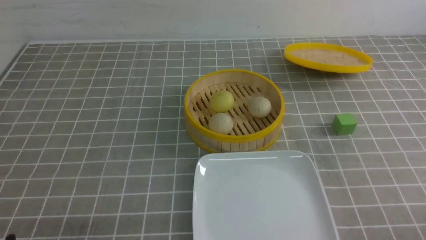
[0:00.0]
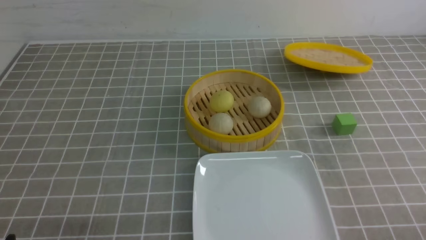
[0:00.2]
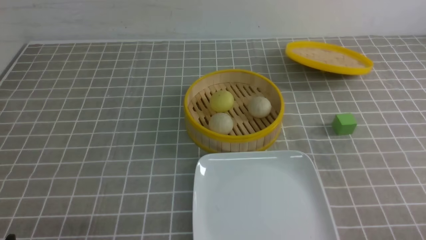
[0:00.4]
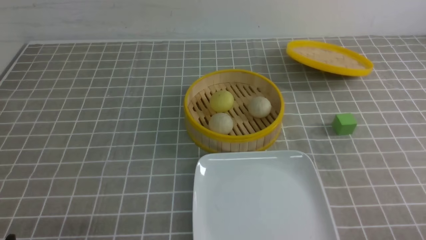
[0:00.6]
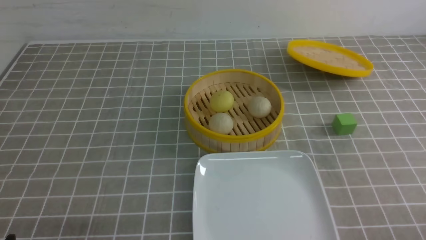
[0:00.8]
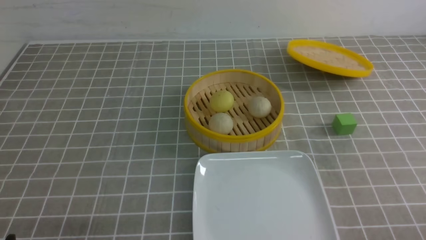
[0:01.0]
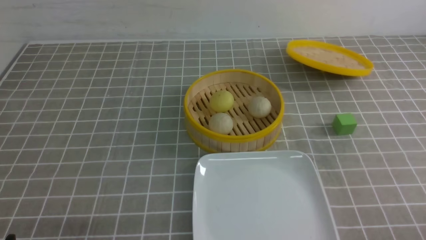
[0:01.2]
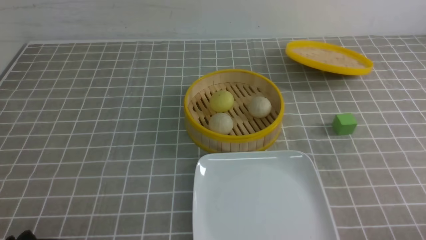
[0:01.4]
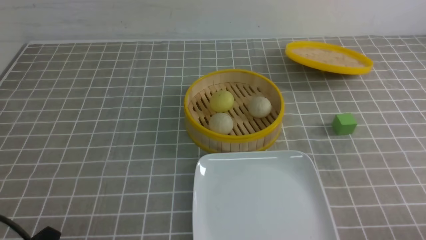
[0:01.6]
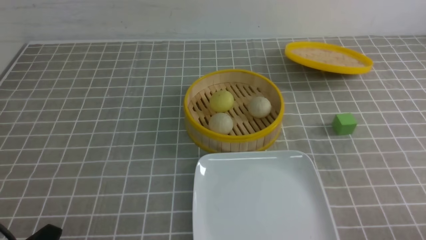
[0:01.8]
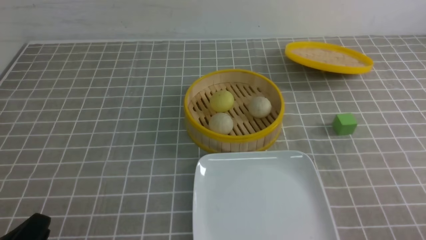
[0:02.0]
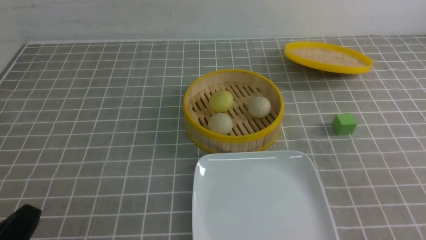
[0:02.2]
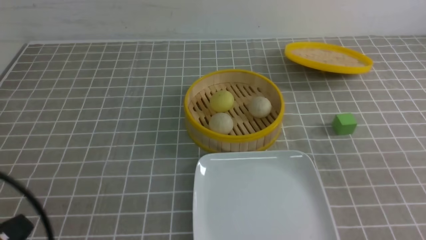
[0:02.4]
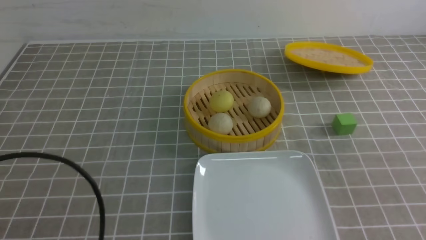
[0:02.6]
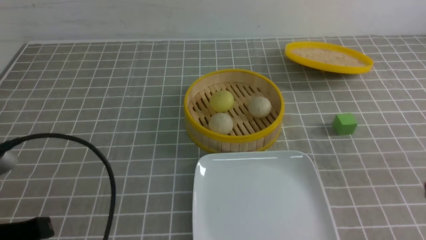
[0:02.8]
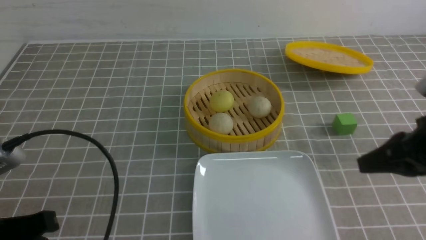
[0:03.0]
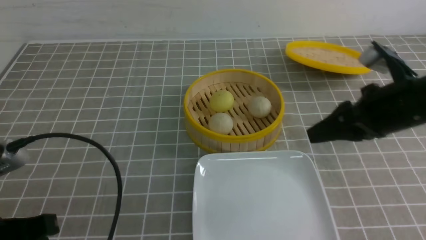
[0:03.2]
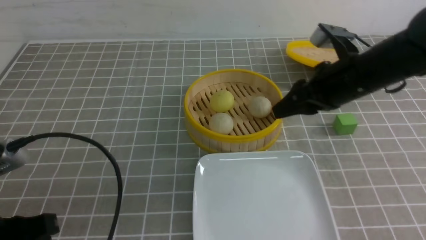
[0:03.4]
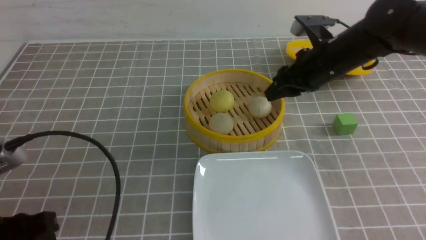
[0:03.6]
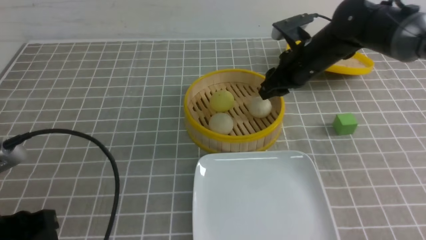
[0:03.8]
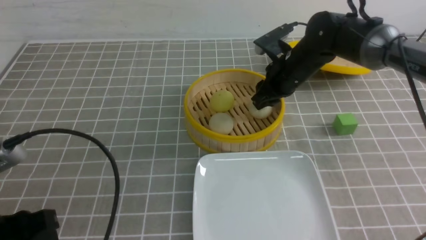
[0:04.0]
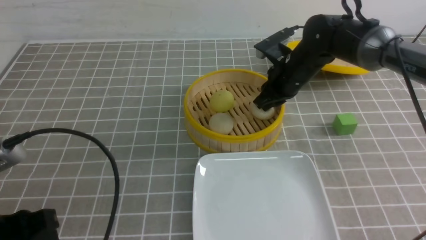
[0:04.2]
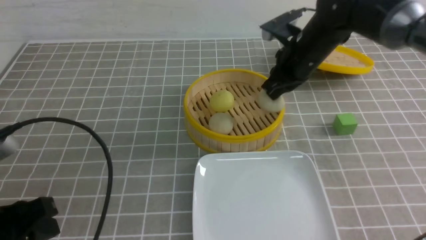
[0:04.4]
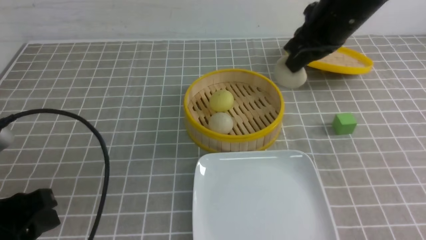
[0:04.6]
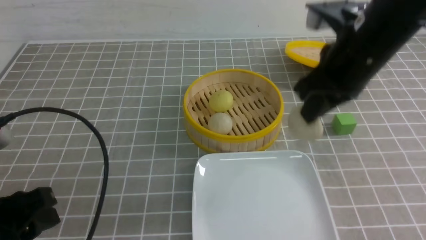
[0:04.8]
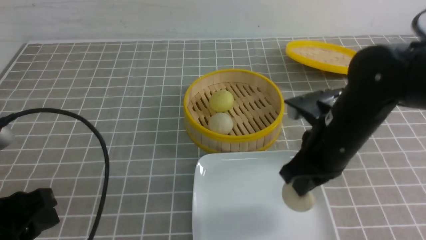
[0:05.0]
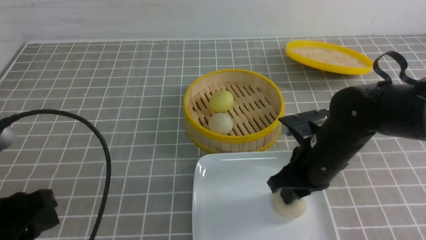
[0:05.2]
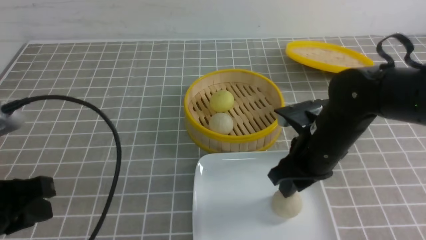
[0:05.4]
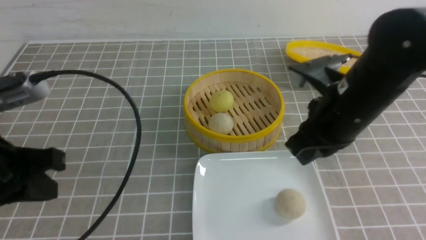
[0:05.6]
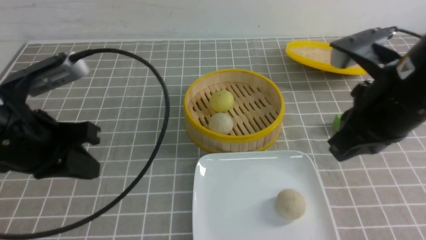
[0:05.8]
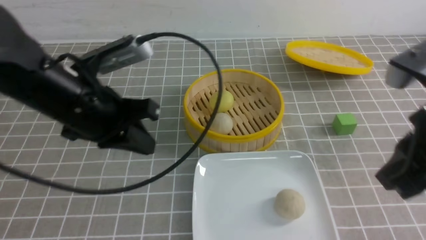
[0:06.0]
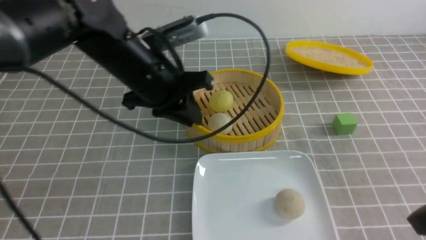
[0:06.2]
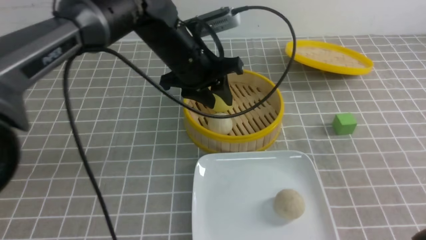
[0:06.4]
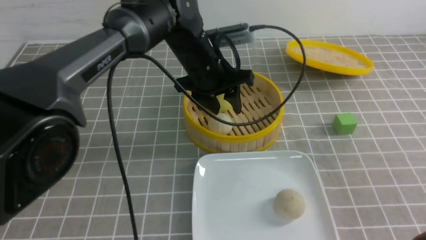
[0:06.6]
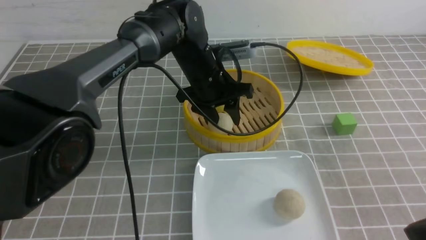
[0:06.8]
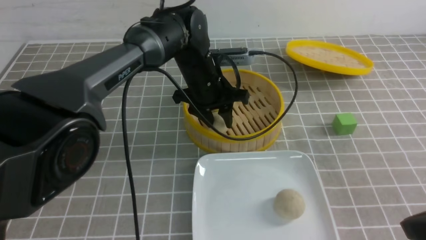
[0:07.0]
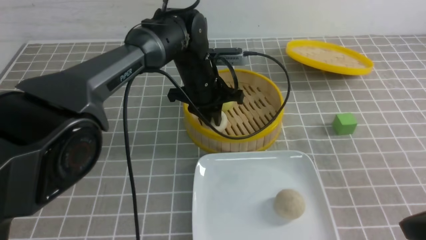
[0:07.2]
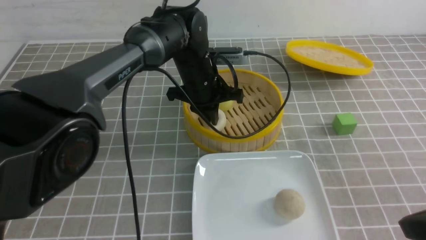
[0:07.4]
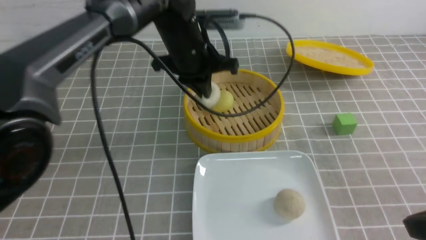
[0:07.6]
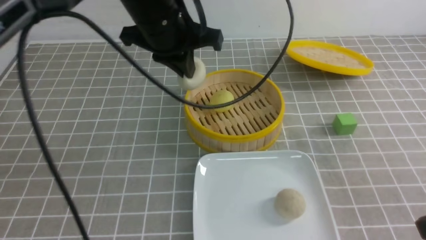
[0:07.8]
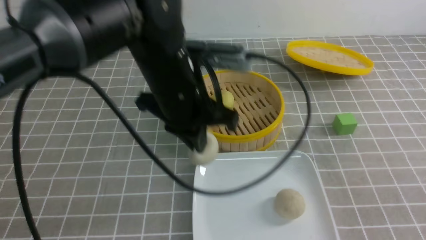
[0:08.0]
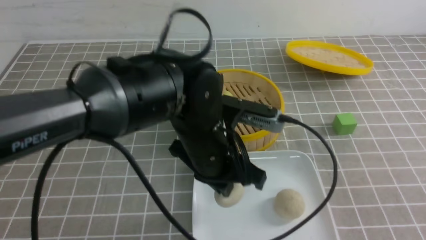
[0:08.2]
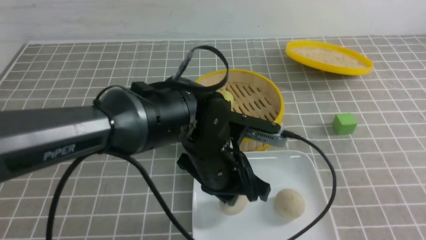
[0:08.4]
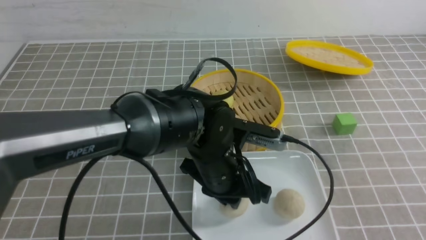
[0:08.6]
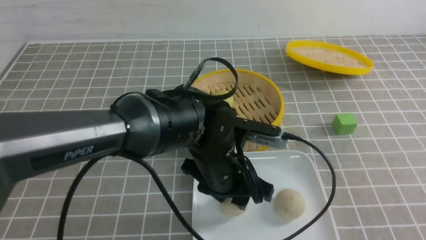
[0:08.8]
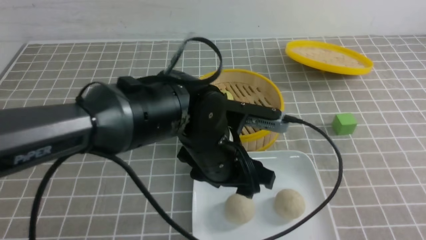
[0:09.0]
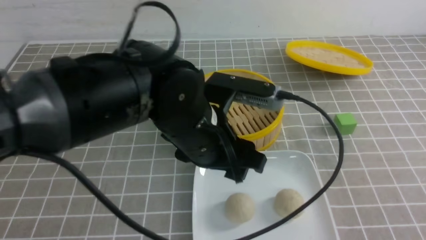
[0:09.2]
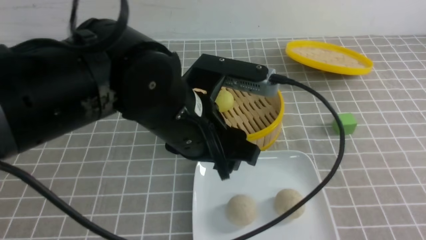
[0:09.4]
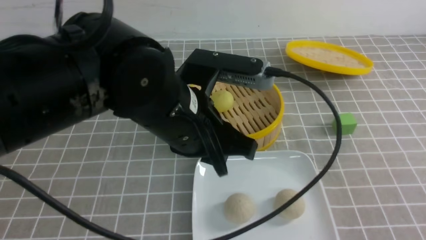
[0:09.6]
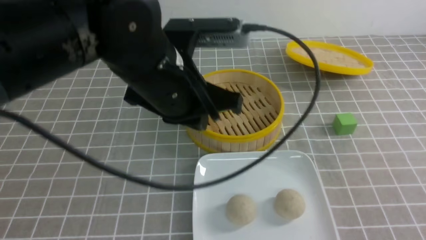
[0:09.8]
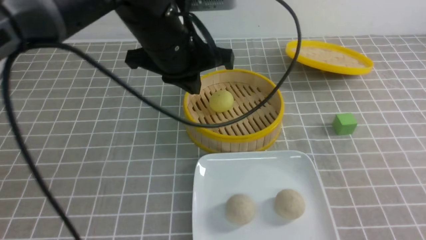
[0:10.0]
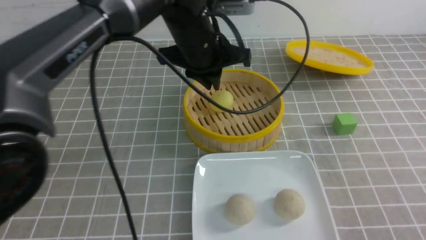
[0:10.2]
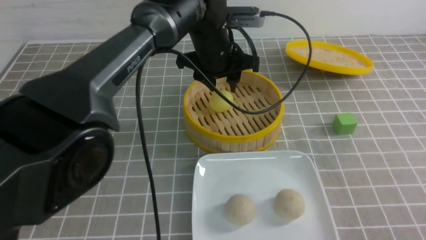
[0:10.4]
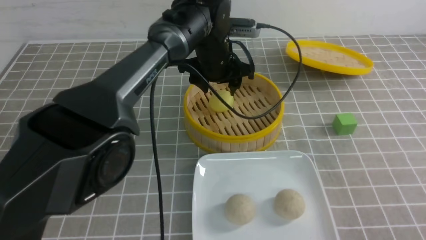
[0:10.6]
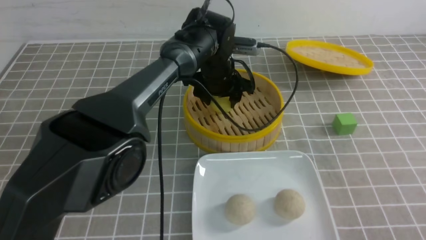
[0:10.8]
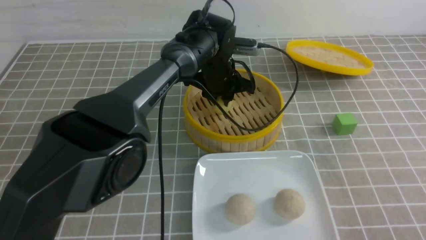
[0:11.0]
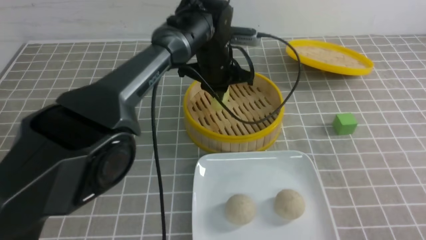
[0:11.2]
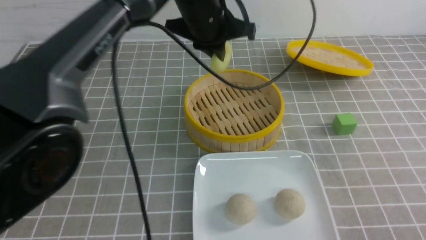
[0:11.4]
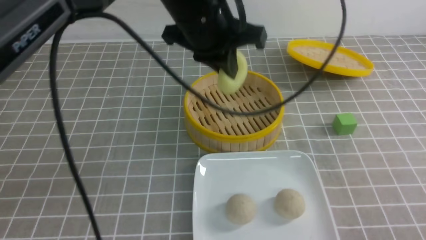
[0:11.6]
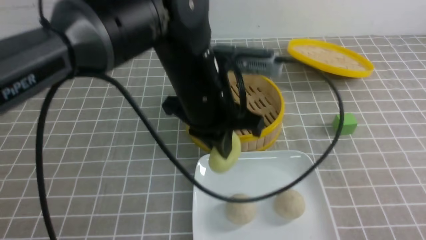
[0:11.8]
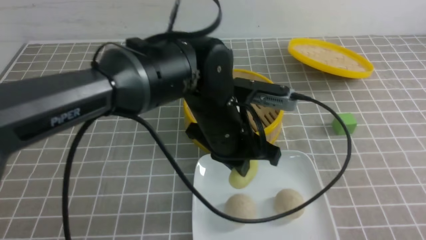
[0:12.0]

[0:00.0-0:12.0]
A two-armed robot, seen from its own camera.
Step, 0:00.0 to 0:04.2: use the right arm to grab the steamed stuffed bun that is closest to it.
Step, 0:04.6 to 0:05.2: use the right arm to put the steamed stuffed bun into the plate.
Step, 0:05.6 to 0:07.4: use the left arm to grab the steamed stuffed bun that is closest to it.
Step, 0:07.6 to 0:08.8: use the left arm to put the steamed stuffed bun into the plate.
Step, 0:09.0 to 0:11.0: use the left arm to grab the steamed stuffed bun that is closest to it.
0:01.6 to 0:03.0: The left gripper travels upward and forward by approximately 10 cm, and closes up. The right gripper goes approximately 20 cm forward and upward, and closes.
0:03.0 to 0:04.4: The left gripper opens its fingers, while the right gripper heads forward and to the left, covering roughly 25 cm, and opens, then closes once more.
0:04.4 to 0:06.0: The right gripper goes approximately 25 cm backward, and opens, then closes once more; the left gripper is displaced forward and to the right by approximately 20 cm, and closes.
0:06.0 to 0:07.6: The left gripper shifts about 15 cm forward and to the right, and opens, then closes again. Meanwhile the right gripper moves backward, approximately 5 cm.
0:07.6 to 0:09.0: The left gripper heads backward and downward, covering some 15 cm, and opens. Meanwhile the right gripper goes roughly 10 cm backward and to the right.
0:09.0 to 0:10.4: The left gripper goes roughly 20 cm forward, and closes and opens again.
0:10.4 to 0:12.0: The left gripper travels backward by approximately 15 cm, and closes its fingers.

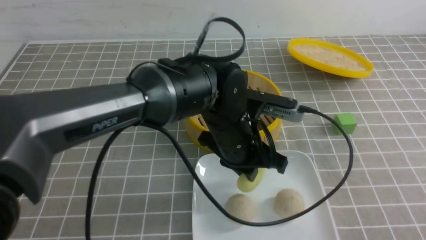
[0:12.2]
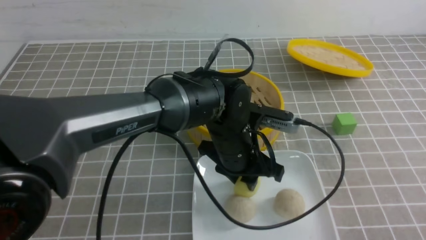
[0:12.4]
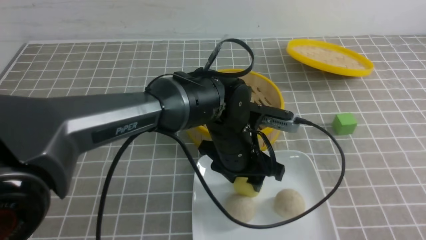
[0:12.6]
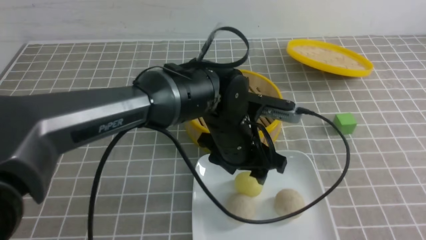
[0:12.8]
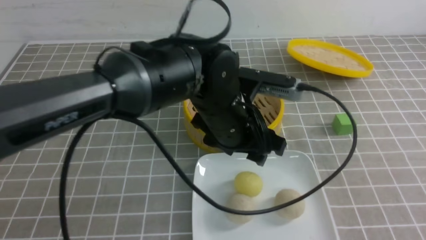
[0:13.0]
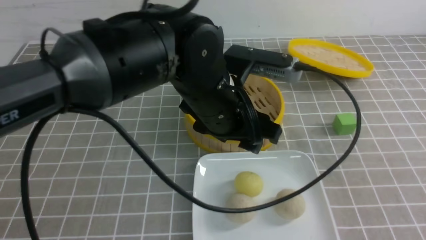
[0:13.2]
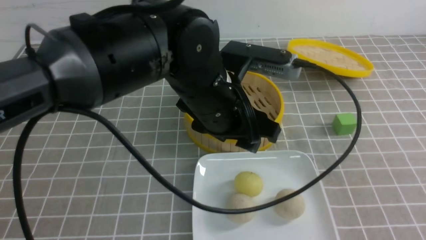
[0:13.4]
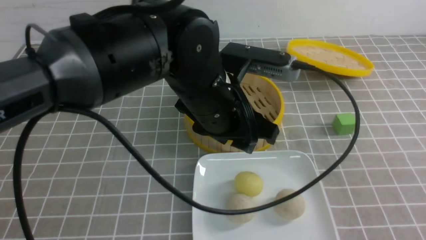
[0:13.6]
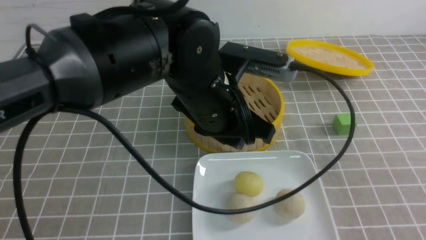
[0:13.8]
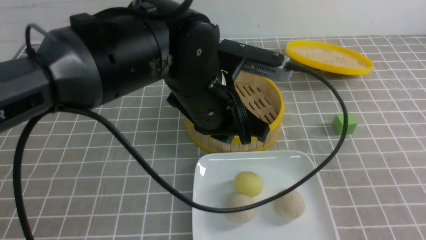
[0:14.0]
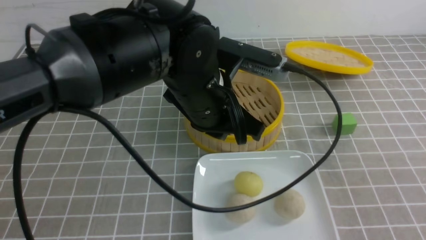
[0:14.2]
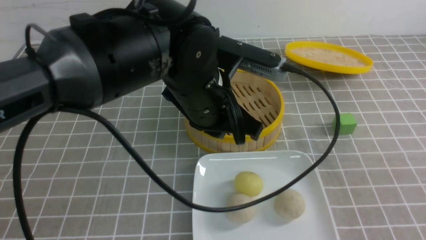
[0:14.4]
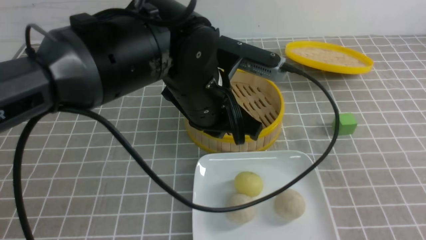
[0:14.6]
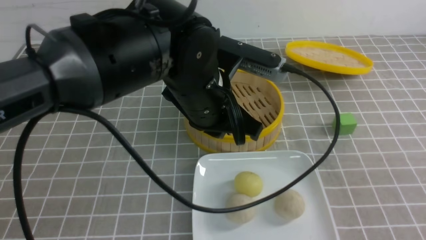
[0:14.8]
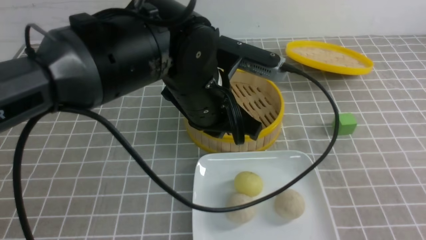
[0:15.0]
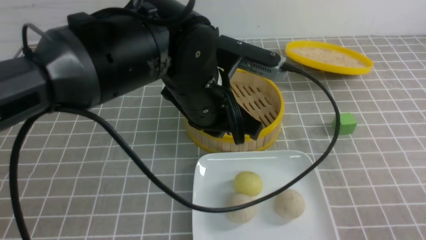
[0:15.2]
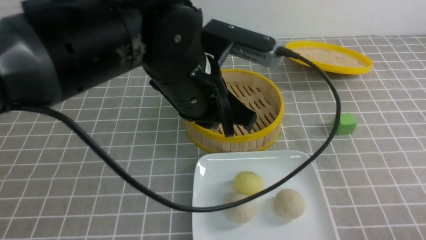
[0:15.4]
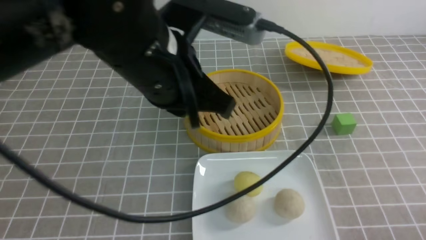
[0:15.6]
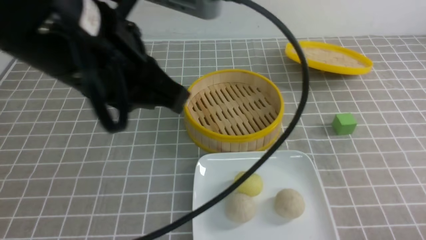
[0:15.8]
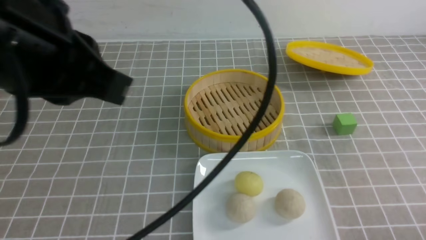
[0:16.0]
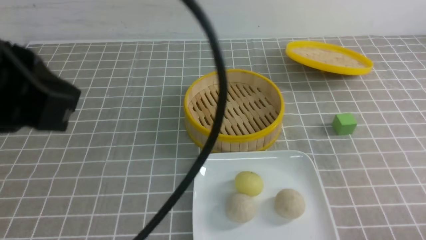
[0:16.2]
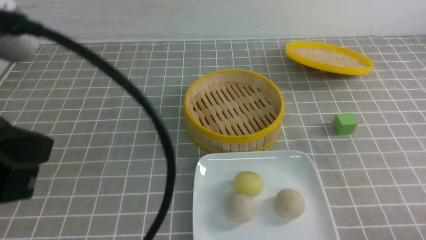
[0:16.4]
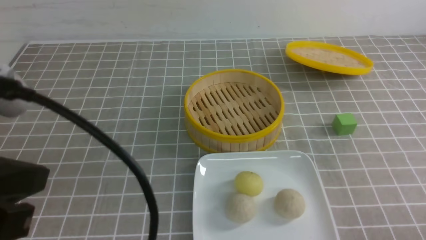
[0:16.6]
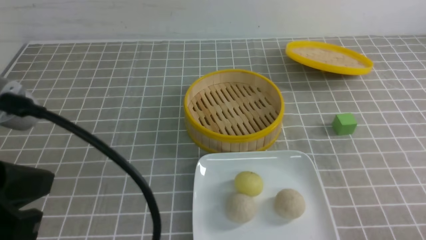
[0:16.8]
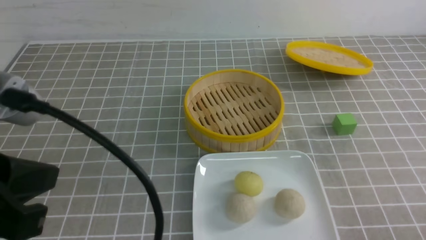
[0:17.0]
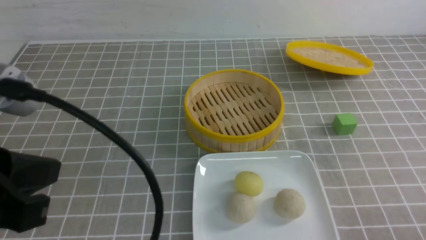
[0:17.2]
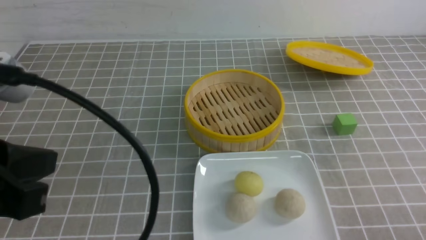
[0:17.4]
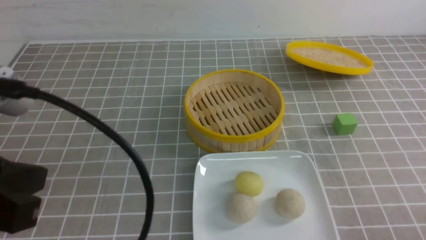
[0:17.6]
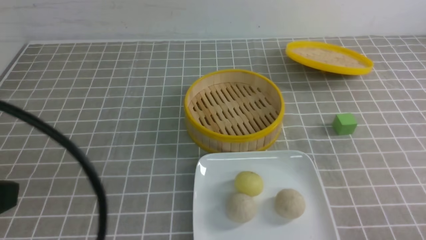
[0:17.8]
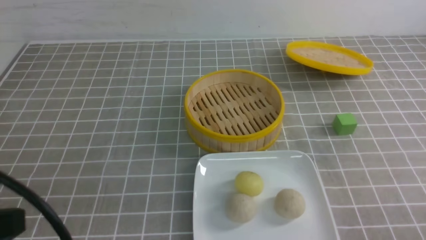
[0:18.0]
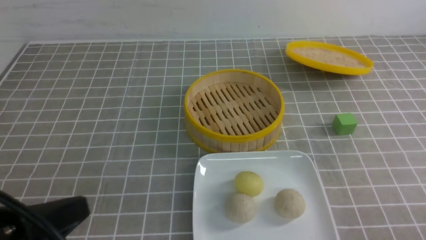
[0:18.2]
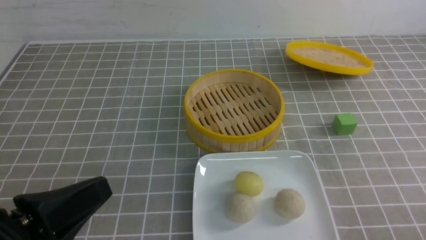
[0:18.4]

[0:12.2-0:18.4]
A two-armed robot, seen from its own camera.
0:12.2 to 0:13.8: The left gripper travels upward by roughly 10 cm, and opens, then closes once more.
0:13.8 to 0:15.4: The right gripper shifts about 10 cm downward; the left gripper ends up roughly 5 cm from where it was, and closes.
0:15.4 to 0:16.8: The left gripper goes some 25 cm to the left and backward.
0:16.8 to 0:18.4: The left gripper goes about 10 cm downward.
